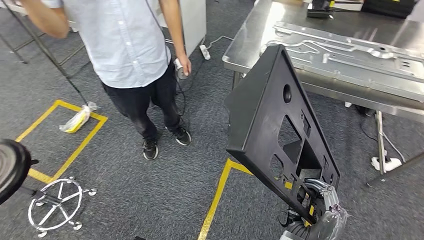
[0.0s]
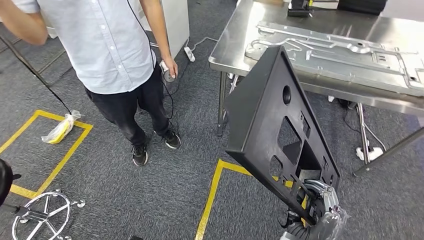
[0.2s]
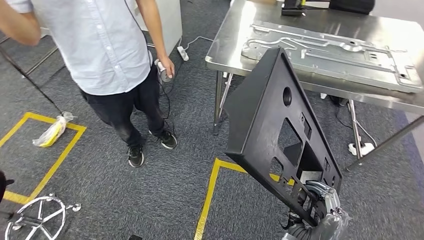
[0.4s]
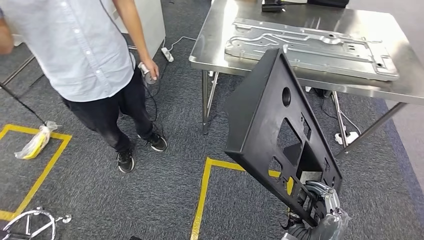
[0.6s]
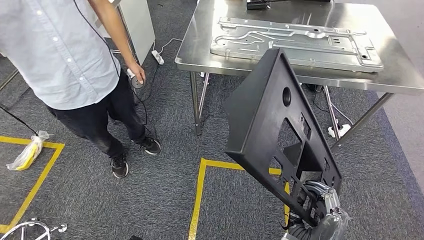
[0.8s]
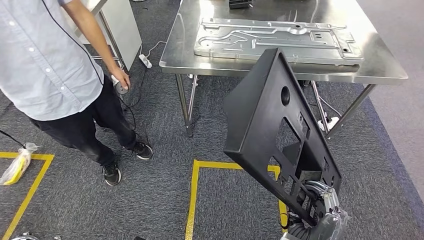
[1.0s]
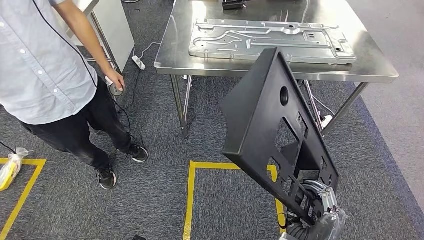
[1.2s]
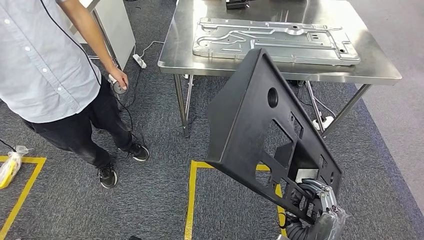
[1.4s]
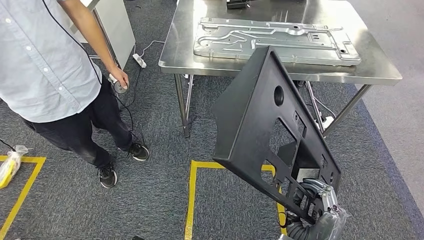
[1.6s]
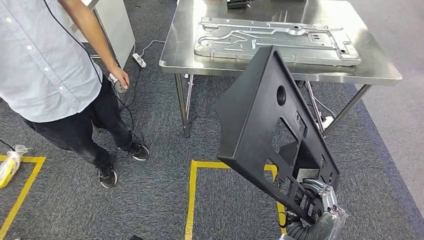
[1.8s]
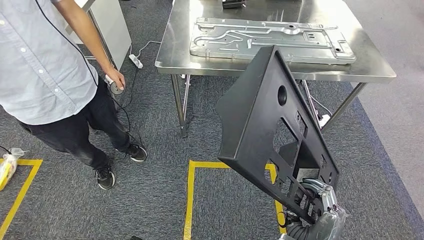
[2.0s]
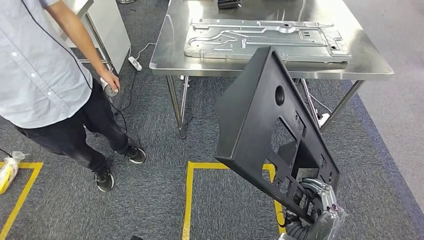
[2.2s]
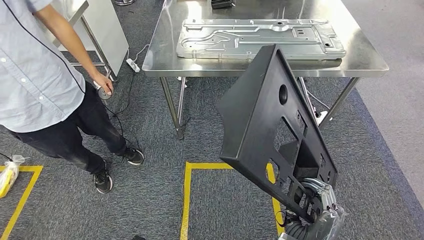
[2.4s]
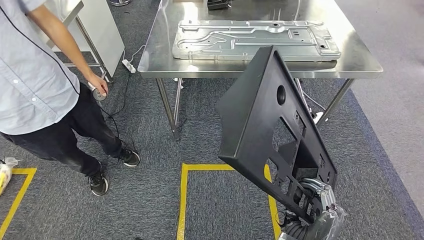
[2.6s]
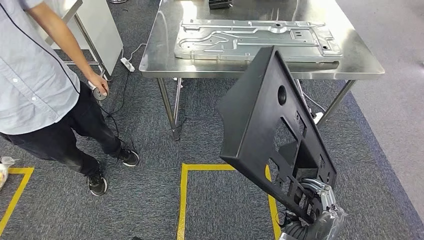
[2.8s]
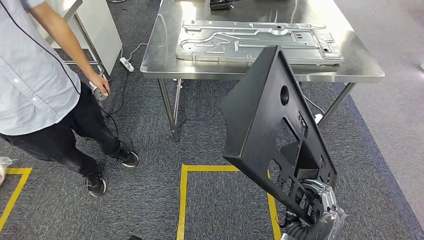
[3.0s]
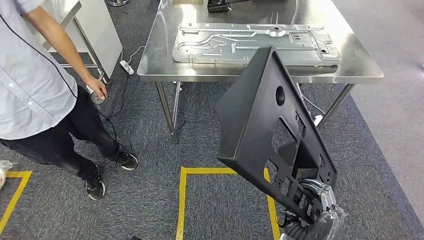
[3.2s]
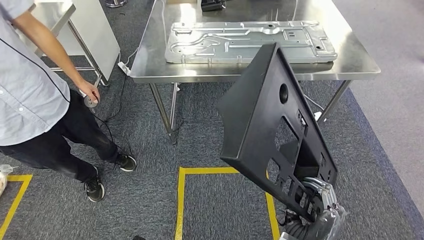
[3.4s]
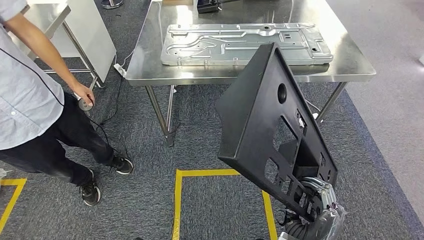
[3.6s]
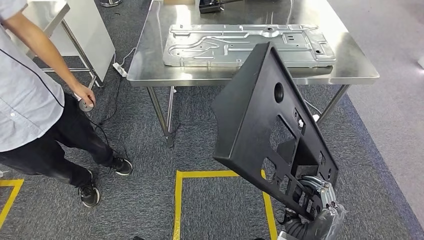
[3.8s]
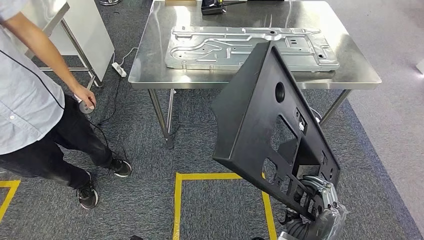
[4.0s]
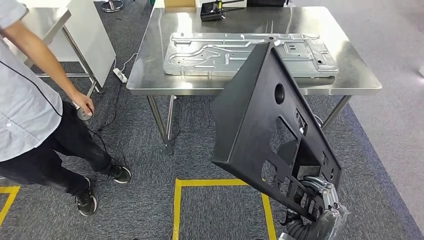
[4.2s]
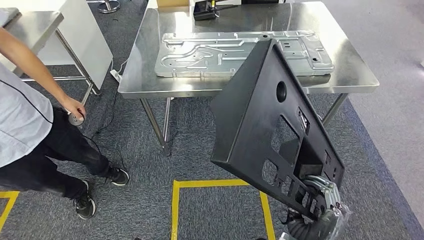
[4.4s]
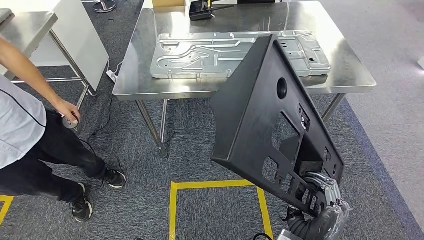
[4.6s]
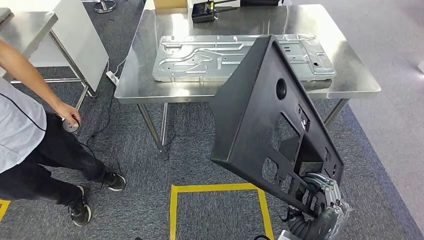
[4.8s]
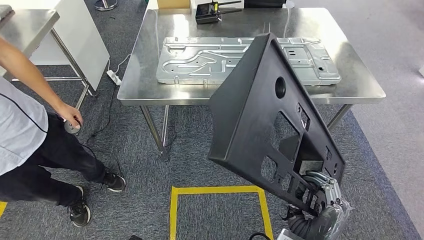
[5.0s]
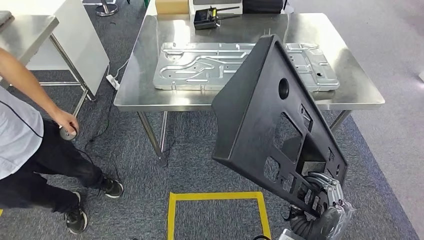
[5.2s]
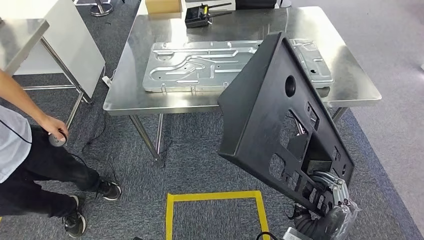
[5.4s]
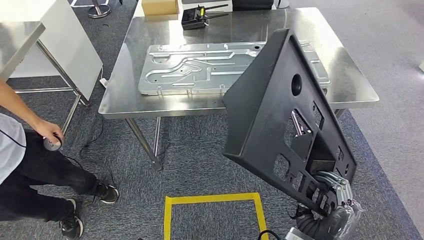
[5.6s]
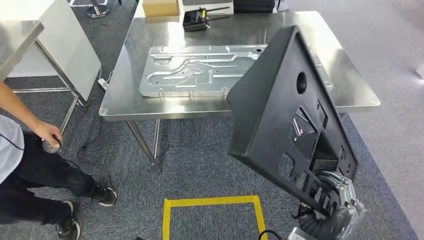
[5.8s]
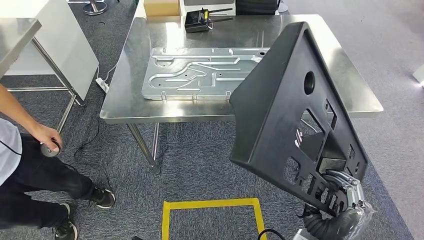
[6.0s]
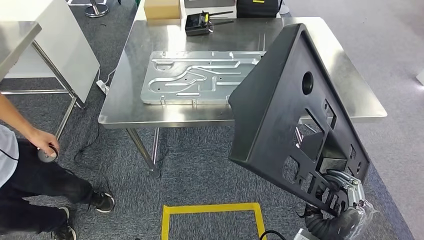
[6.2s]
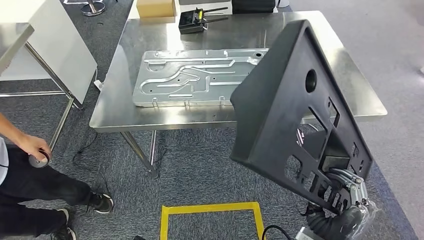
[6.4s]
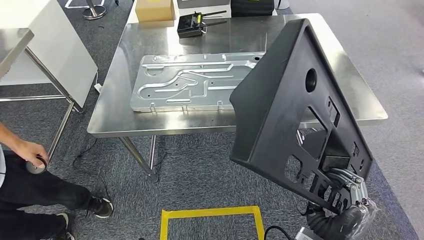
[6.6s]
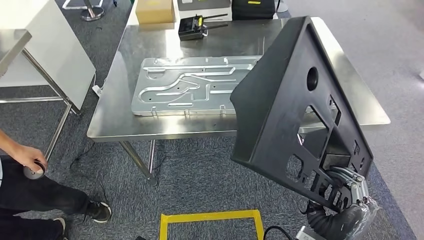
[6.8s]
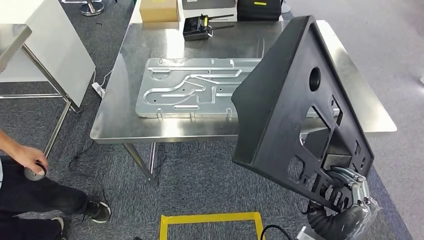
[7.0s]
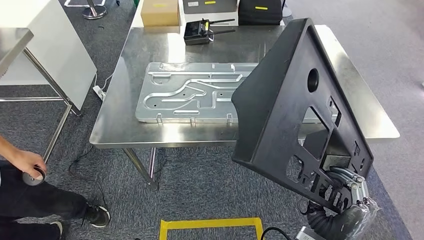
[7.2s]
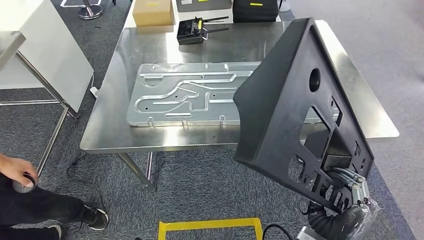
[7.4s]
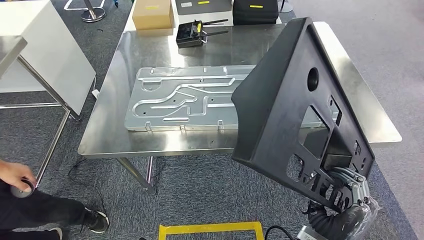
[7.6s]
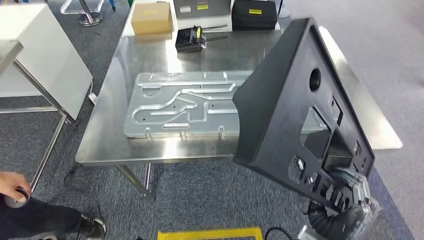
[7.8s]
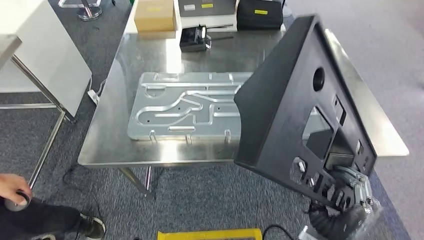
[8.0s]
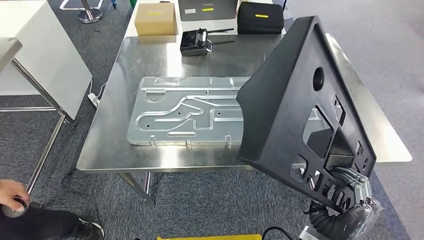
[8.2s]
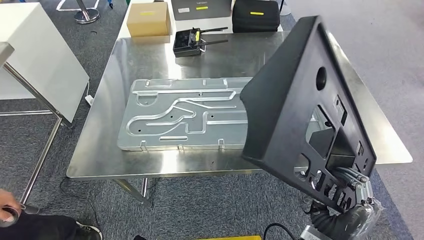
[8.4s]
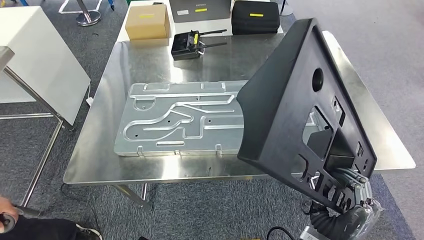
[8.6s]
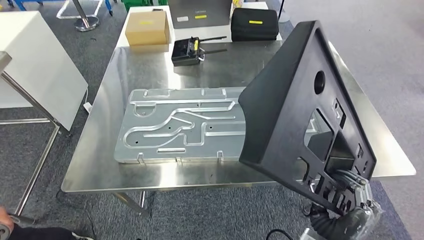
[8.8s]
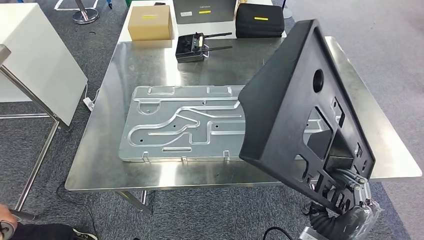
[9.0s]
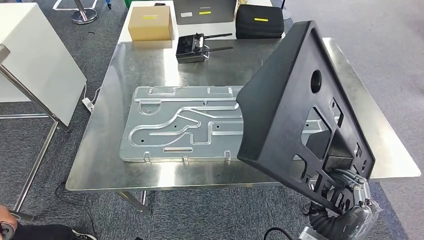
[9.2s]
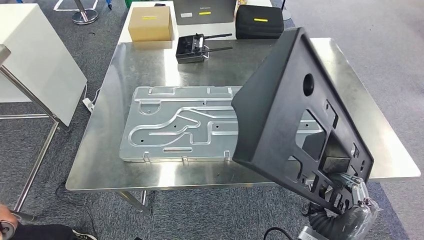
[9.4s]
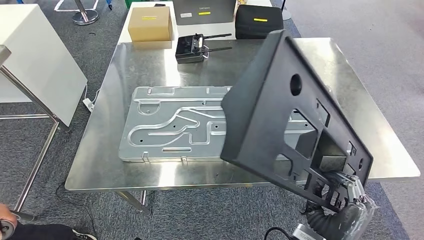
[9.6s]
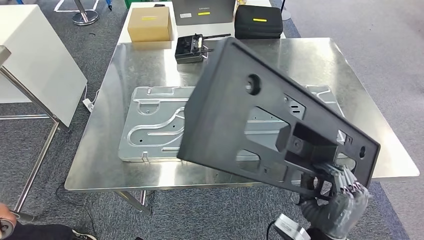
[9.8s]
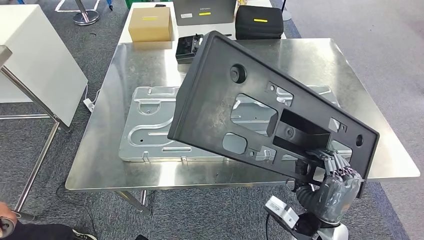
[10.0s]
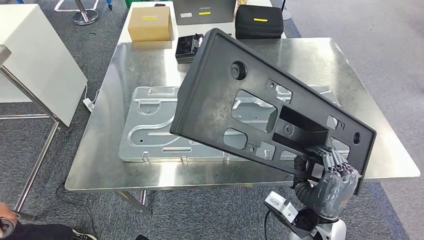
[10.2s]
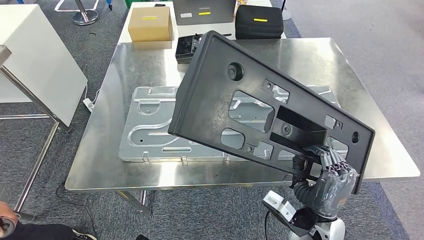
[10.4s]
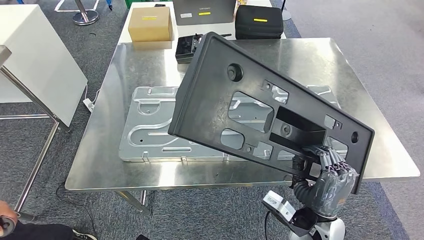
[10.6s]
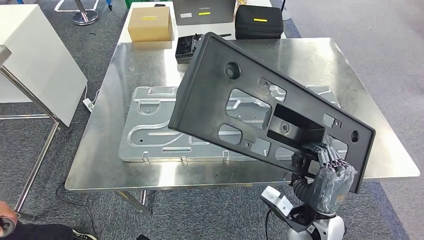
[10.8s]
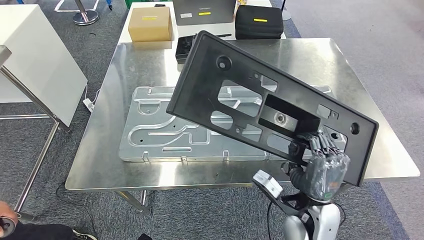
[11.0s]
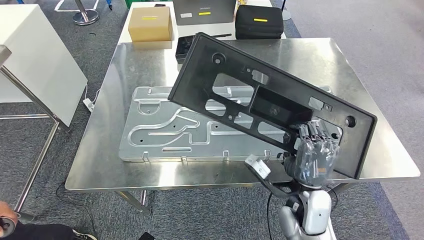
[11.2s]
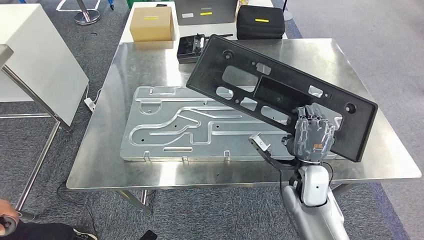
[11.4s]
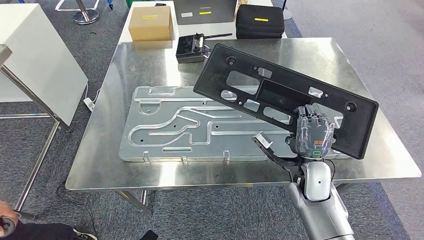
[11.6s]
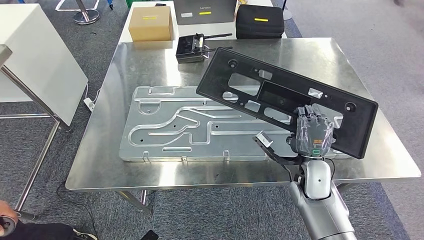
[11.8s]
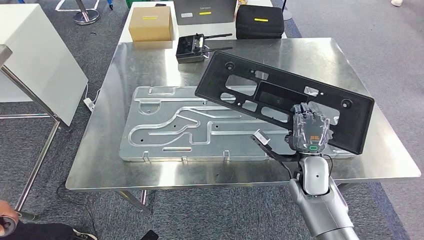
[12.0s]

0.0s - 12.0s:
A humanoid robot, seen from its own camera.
Step, 0.0s - 7.8s: Move the large material to the workbench.

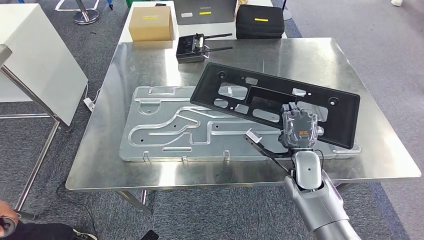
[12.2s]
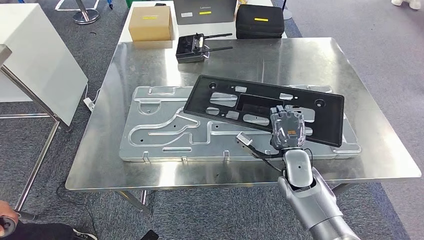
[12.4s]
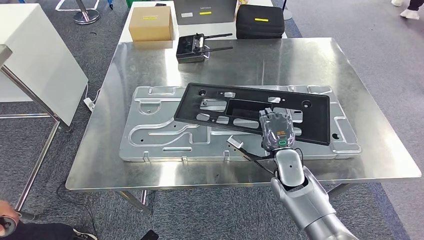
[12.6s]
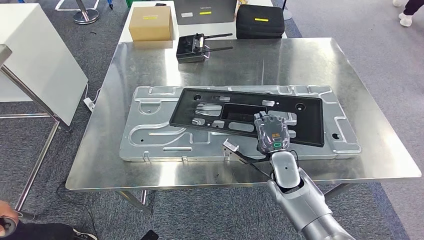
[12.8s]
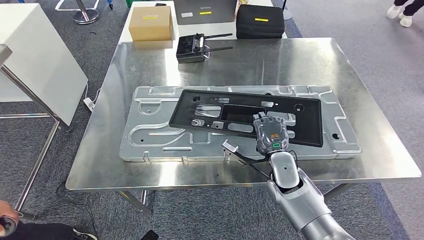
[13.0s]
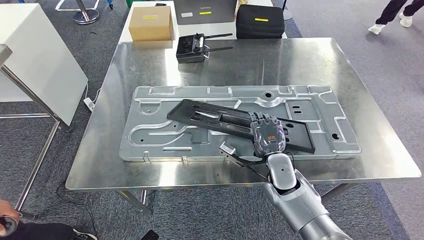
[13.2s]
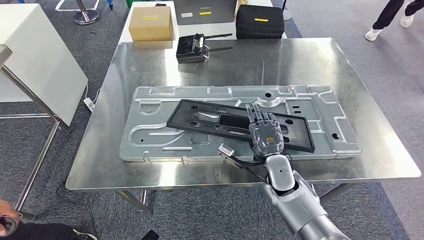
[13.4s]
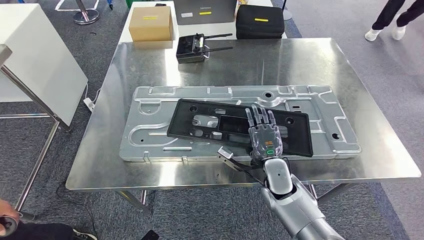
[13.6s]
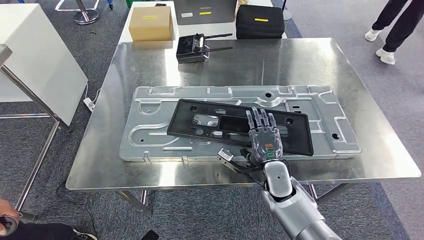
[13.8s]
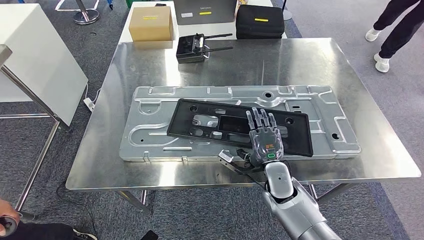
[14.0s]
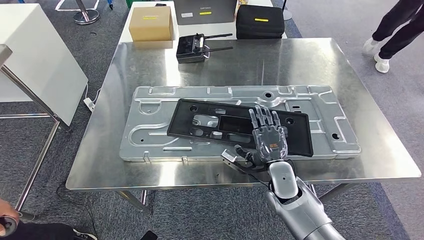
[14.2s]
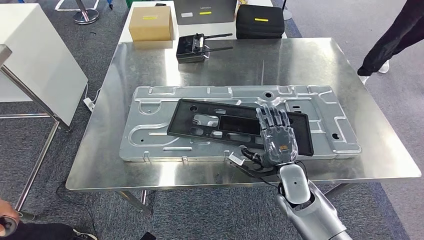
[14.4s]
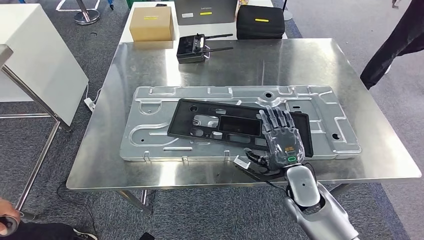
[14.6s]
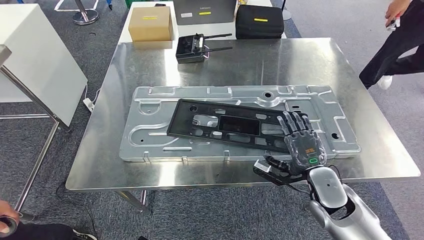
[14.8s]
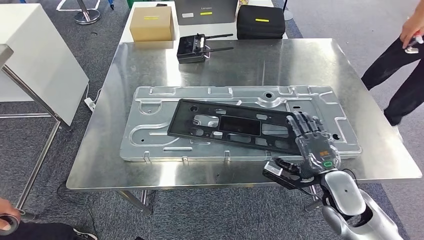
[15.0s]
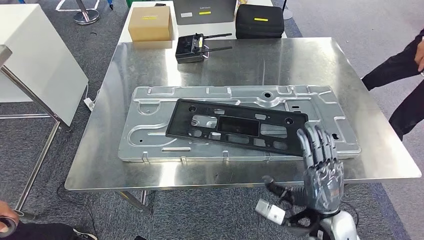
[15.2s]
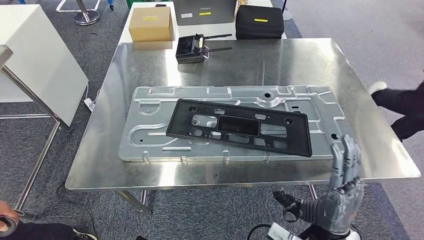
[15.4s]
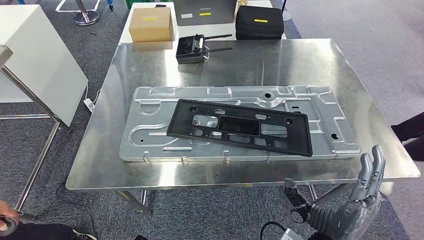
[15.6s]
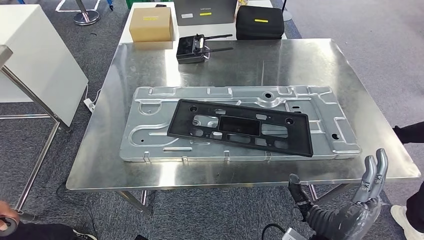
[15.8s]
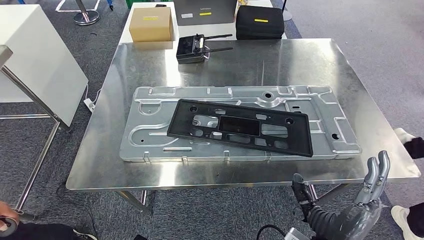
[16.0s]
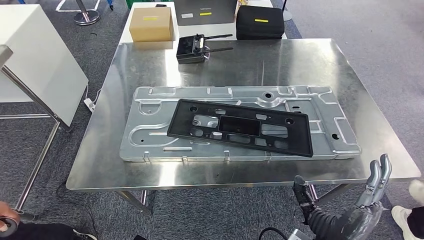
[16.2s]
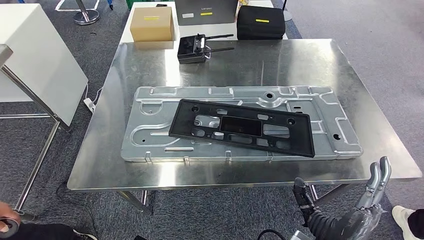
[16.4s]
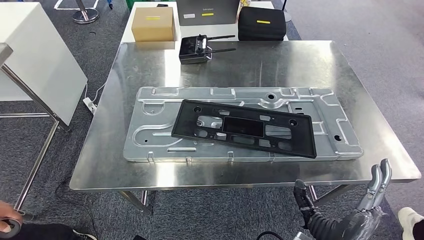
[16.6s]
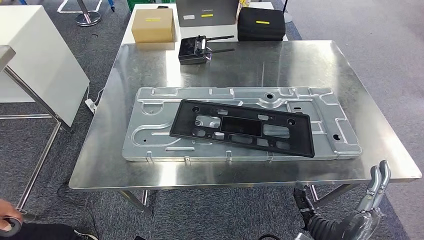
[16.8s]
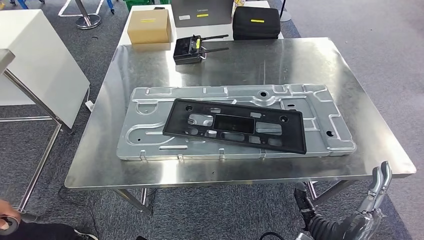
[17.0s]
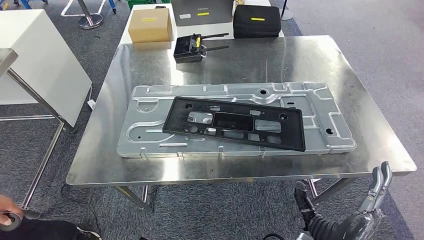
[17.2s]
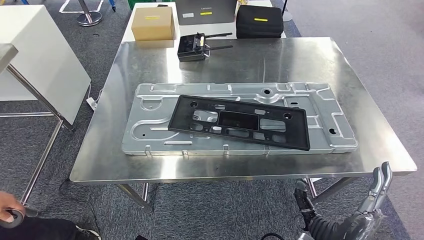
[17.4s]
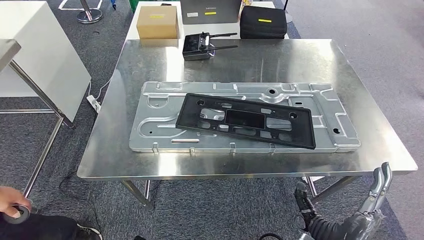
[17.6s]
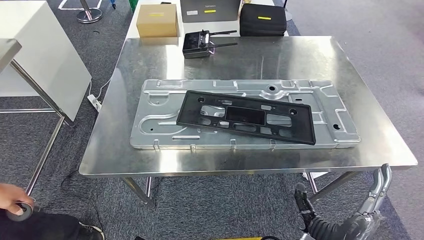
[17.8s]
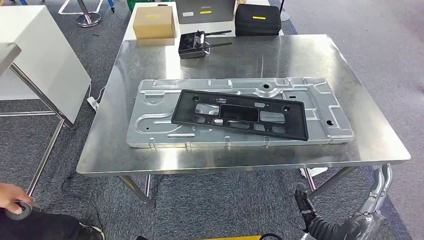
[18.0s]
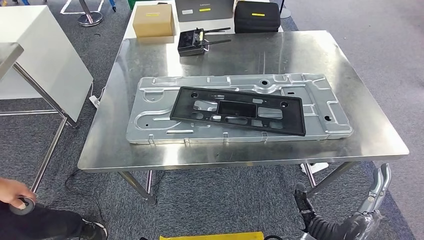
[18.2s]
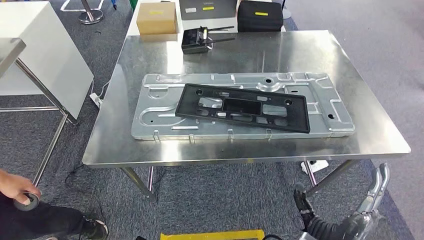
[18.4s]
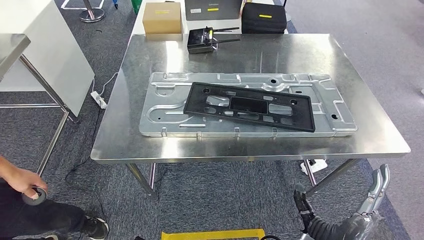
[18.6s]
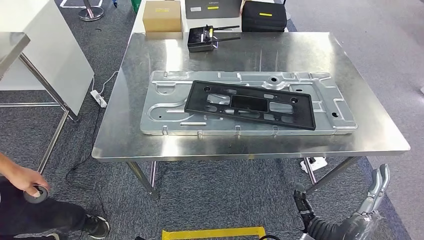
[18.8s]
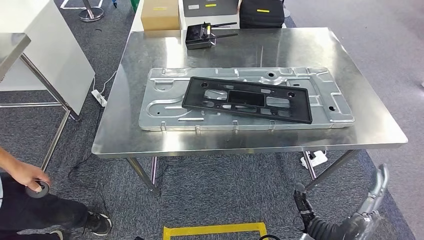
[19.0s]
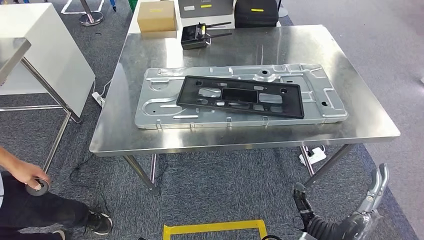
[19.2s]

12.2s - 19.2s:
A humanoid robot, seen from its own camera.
Step, 12.2s - 17.0s: Insert the large material into the corresponding slot on the workbench.
12.2s - 13.6s: The right hand heads to the left, covering roughly 5 cm.
13.6s - 15.0s: The right hand travels to the right and backward by some 15 cm.
15.0s - 16.4s: The right hand is displaced backward and to the left by some 15 cm.
